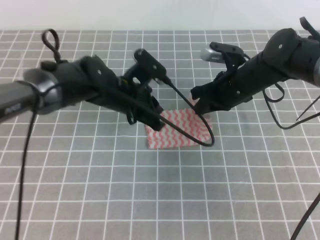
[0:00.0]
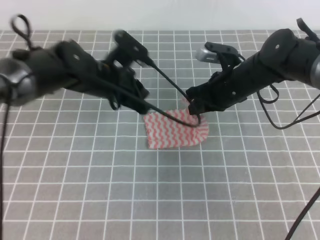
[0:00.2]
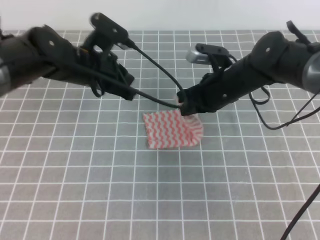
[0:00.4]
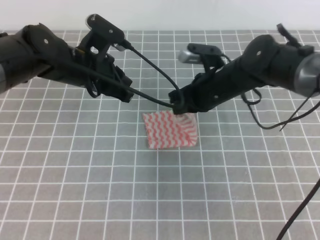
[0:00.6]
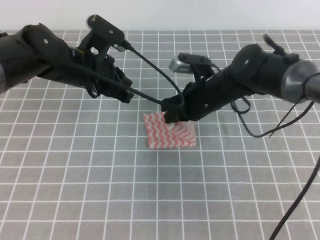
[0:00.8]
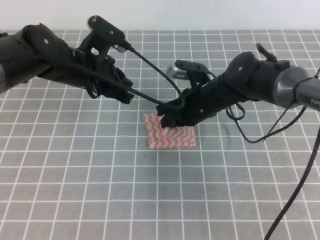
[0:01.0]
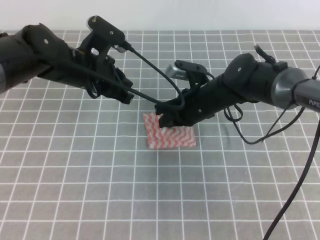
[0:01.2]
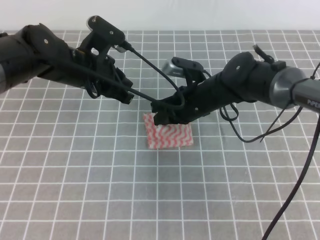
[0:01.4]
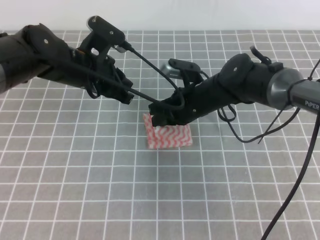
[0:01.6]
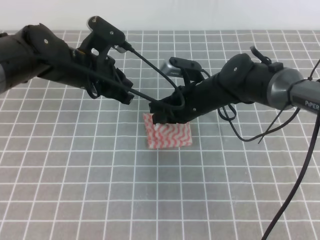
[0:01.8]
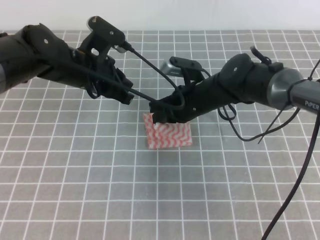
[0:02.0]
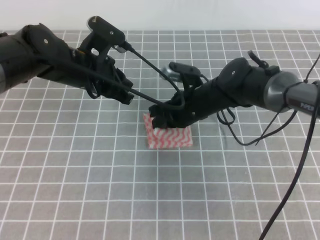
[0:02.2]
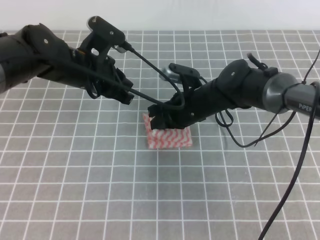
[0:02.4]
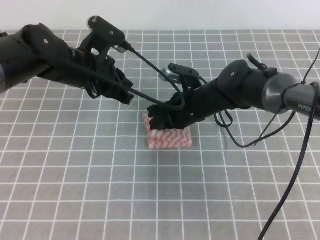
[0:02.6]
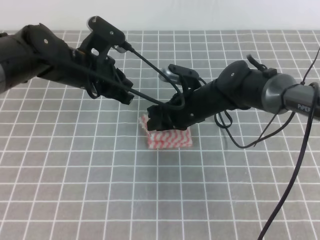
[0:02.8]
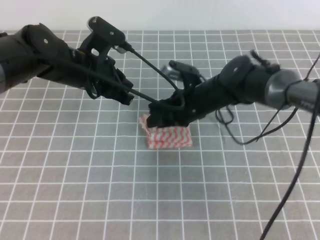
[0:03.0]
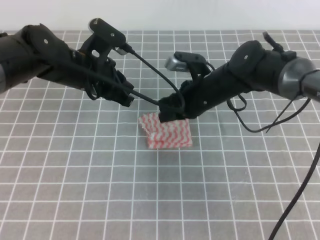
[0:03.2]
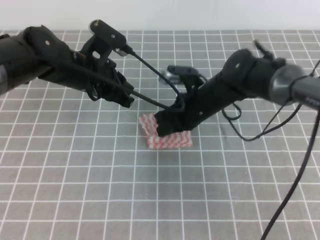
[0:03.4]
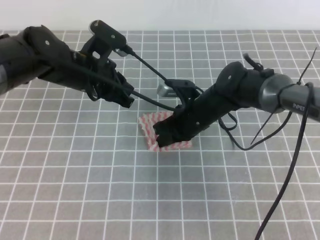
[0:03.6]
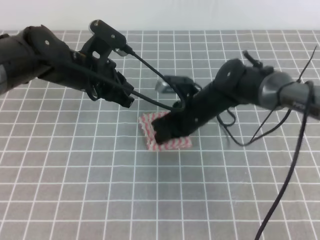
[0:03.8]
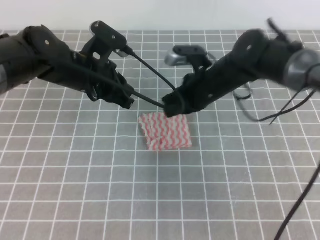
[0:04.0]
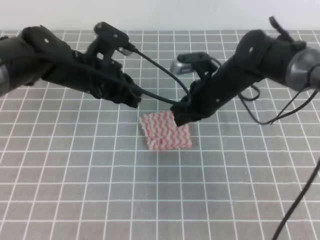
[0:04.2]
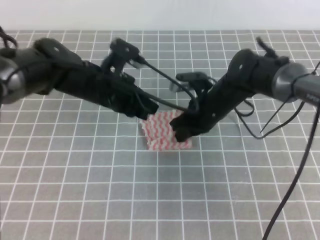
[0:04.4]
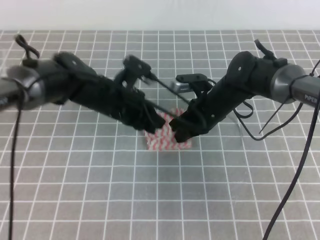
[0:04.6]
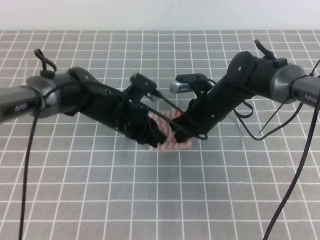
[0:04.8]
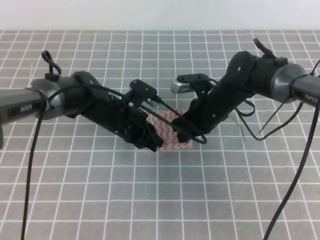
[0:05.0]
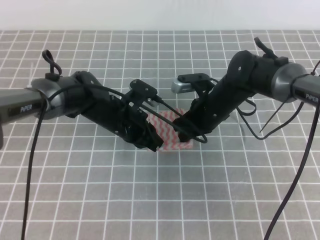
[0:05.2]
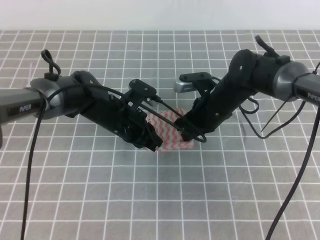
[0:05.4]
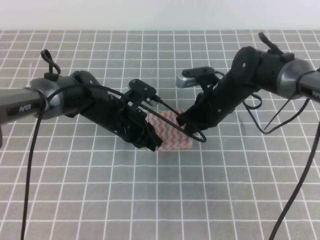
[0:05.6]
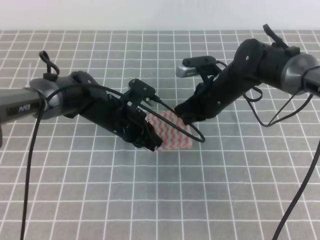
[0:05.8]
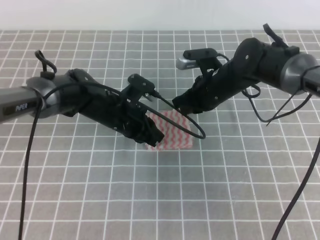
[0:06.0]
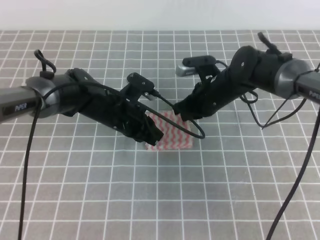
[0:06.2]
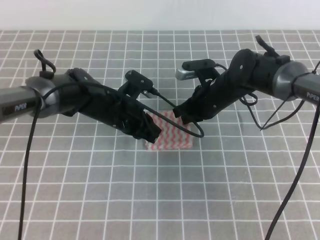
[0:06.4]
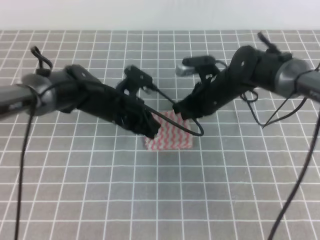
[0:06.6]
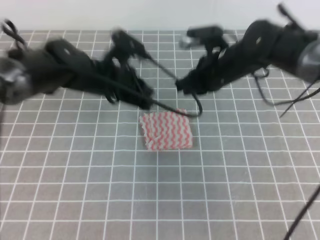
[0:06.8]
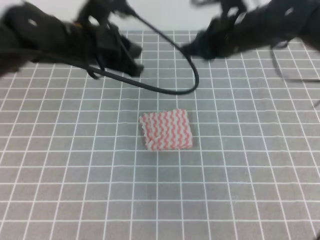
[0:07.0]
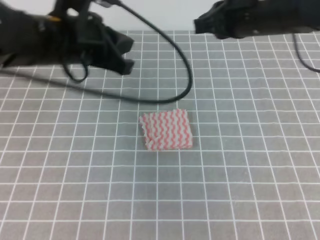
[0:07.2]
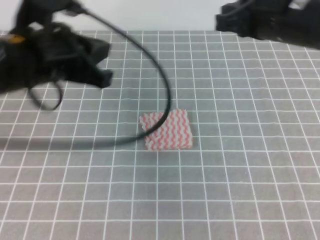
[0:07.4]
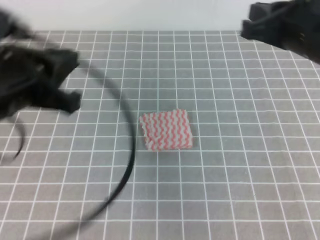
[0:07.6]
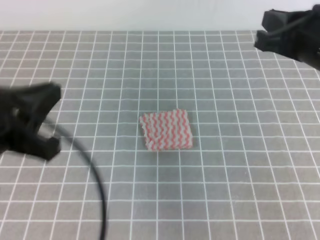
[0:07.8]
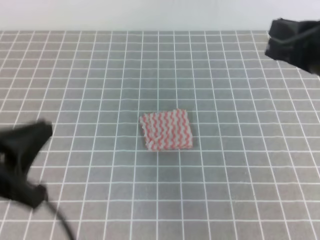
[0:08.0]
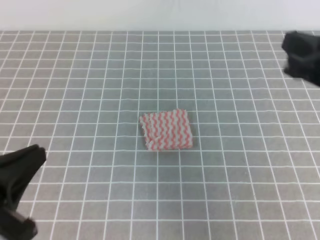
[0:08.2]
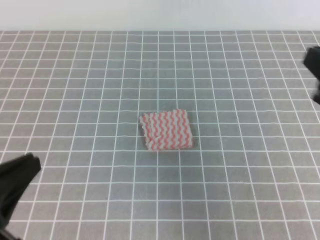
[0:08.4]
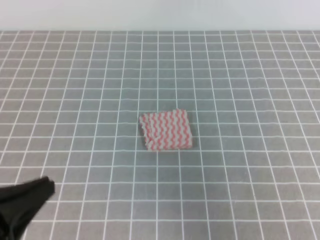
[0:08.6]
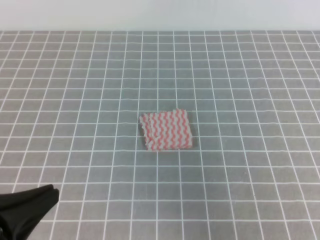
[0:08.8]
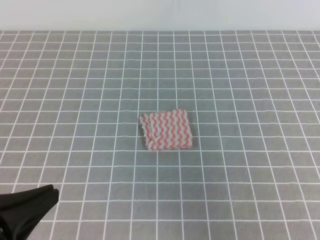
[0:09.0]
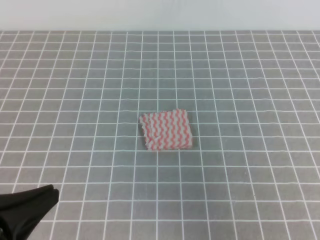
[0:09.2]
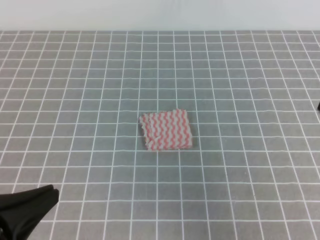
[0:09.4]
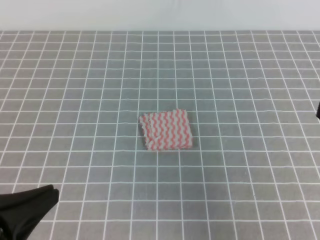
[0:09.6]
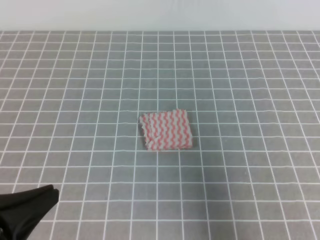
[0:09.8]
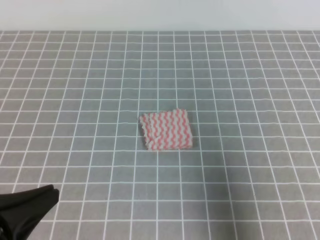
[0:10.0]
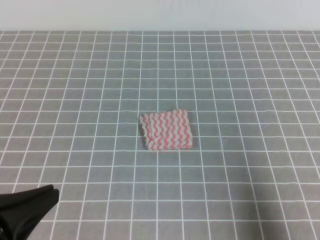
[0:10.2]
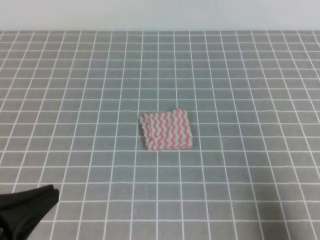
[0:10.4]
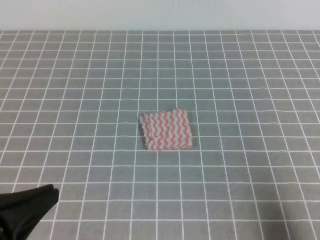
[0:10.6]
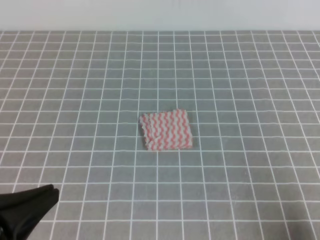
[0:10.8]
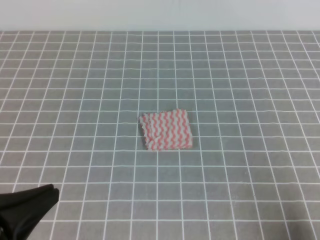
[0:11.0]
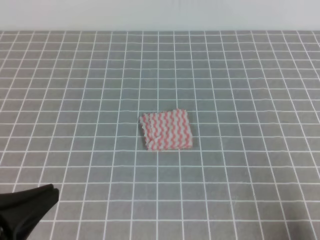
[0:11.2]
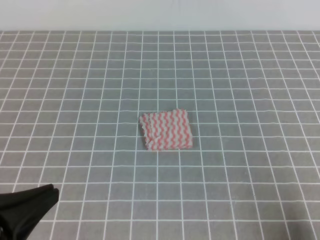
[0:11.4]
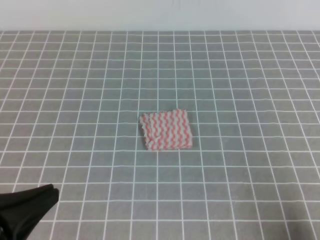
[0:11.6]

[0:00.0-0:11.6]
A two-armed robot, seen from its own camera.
0:00.0 to 0:01.4: The left gripper heads upward and to the left, covering approximately 10 cm, while the right gripper shifts some 10 cm to the left.
0:01.4 to 0:02.8: The right gripper opens up.
0:02.8 to 0:04.4: The right gripper closes.
0:04.4 to 0:05.8: The left gripper travels downward by some 10 cm.
0:05.8 to 0:07.2: The grippers both shift upward by some 20 cm.
0:07.2 to 0:08.8: The left gripper goes about 25 cm backward. The right gripper is displaced backward and to the right by about 25 cm.
0:08.8 to 0:10.2: The right gripper moves downward and to the right, about 10 cm.
0:10.2 to 0:11.6: The right gripper moves downward, roughly 10 cm.

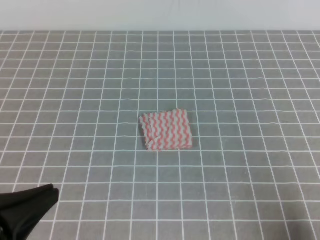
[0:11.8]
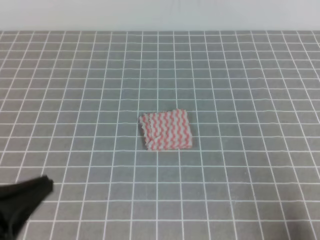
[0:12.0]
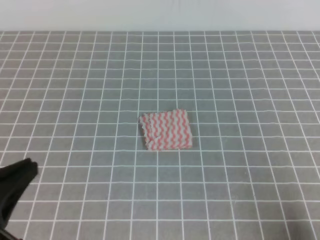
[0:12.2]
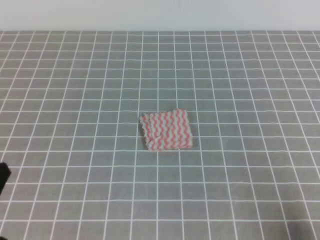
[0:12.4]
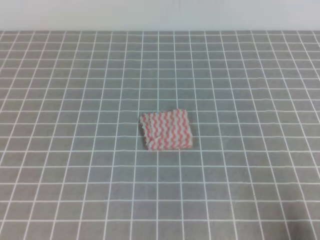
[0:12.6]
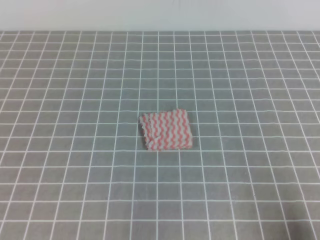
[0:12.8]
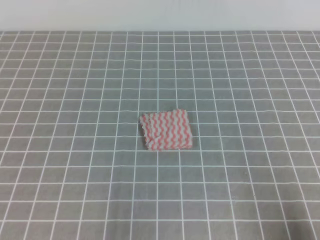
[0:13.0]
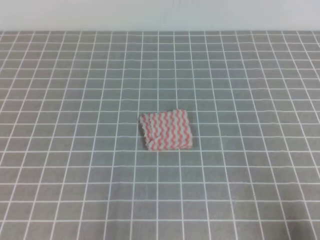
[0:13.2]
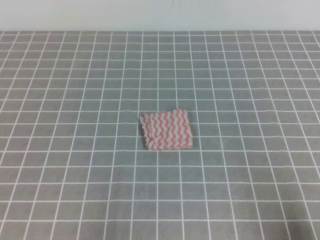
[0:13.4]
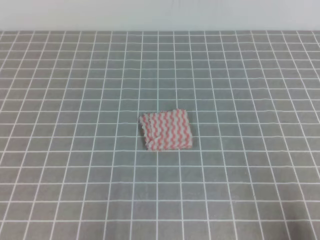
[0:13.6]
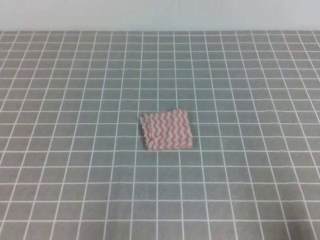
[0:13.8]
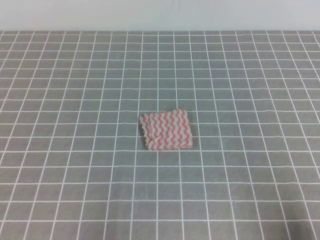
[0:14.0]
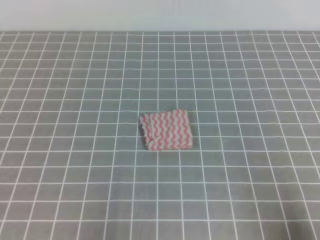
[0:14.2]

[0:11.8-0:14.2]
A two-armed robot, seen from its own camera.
Step, 0:11.8 to 0:14.2: Fold the towel.
0:11.8 to 0:13.0: The left gripper heads downward and to the left, covering roughly 10 cm.
